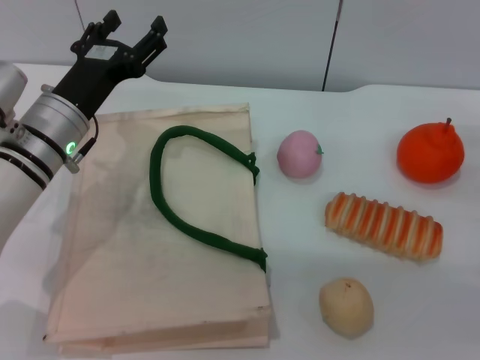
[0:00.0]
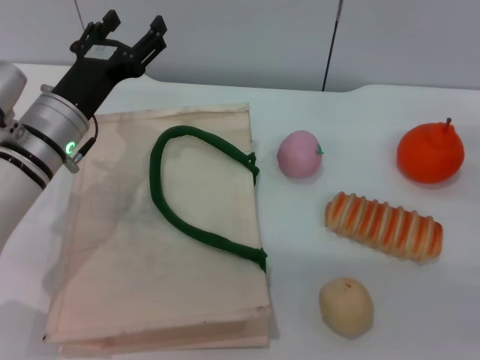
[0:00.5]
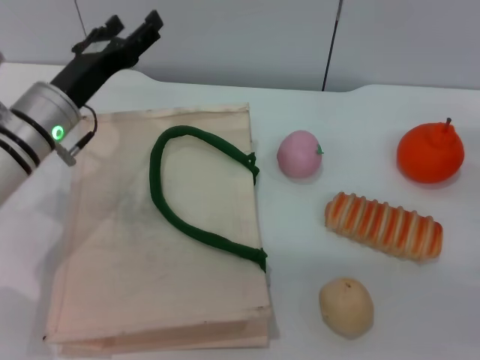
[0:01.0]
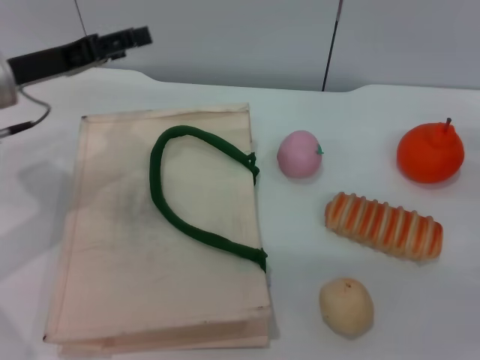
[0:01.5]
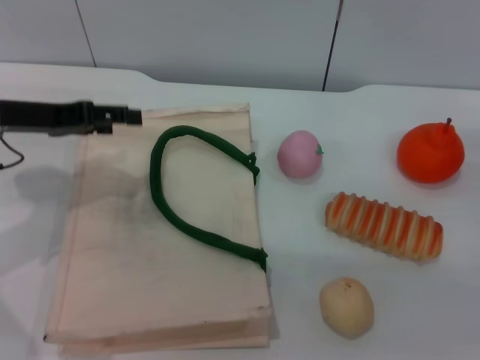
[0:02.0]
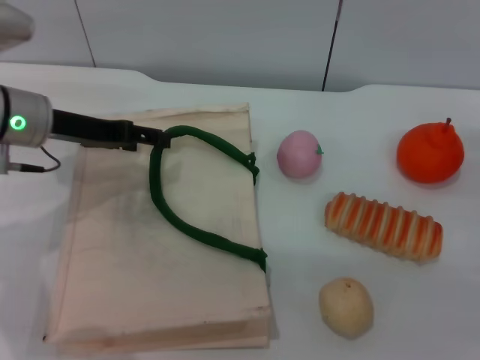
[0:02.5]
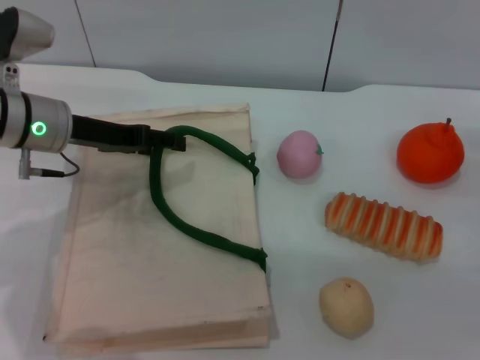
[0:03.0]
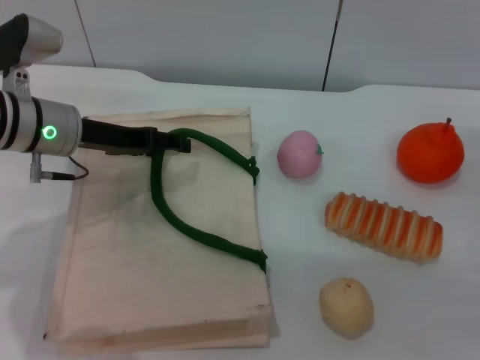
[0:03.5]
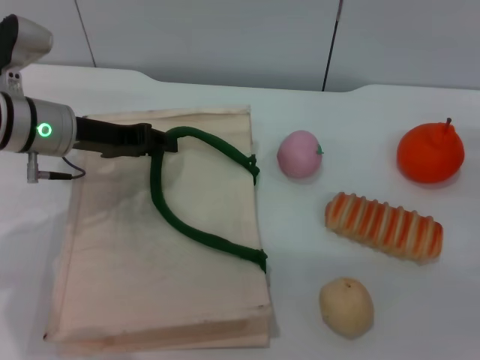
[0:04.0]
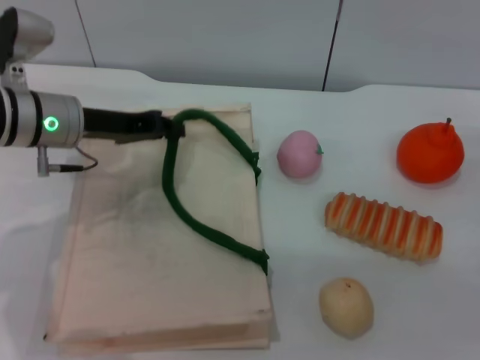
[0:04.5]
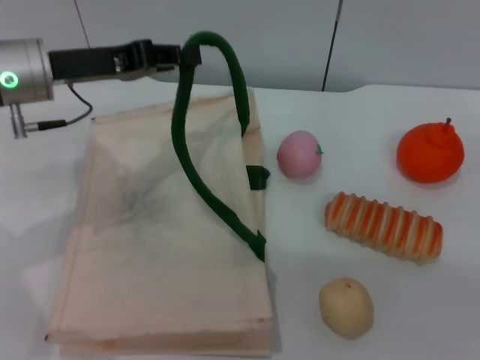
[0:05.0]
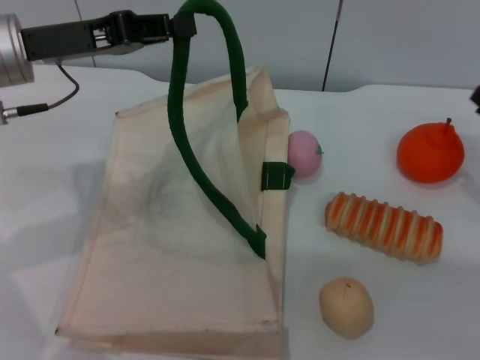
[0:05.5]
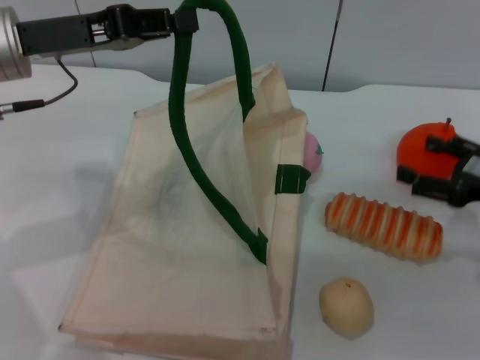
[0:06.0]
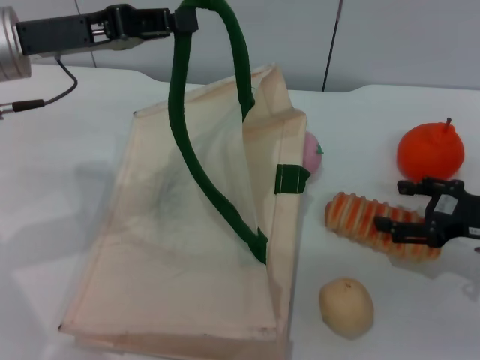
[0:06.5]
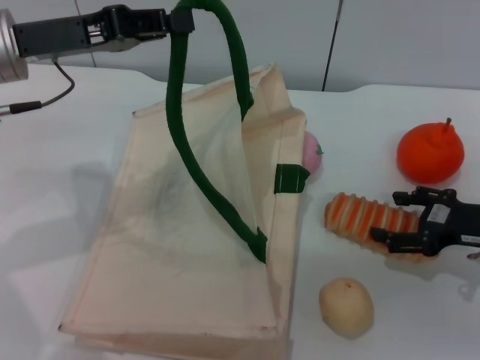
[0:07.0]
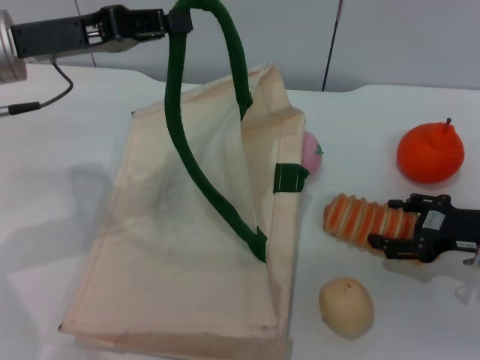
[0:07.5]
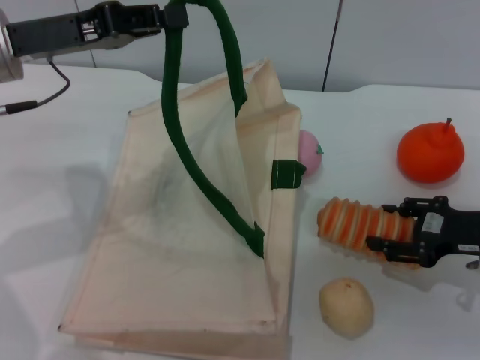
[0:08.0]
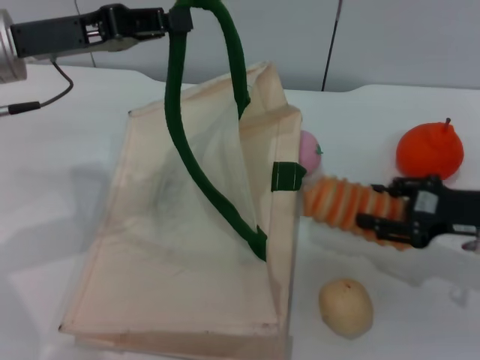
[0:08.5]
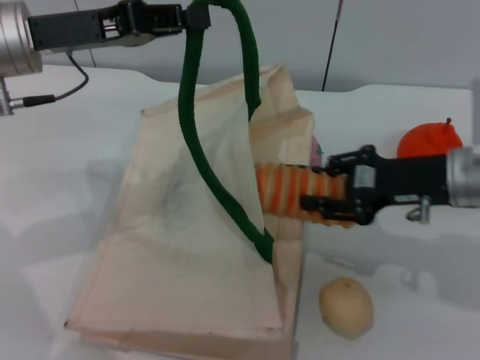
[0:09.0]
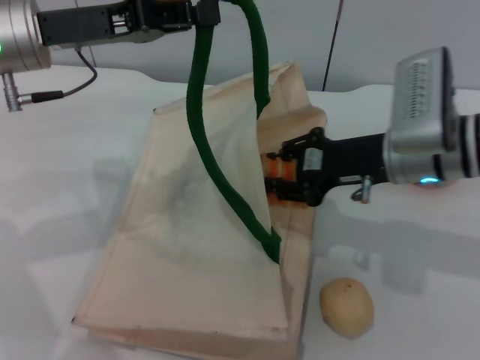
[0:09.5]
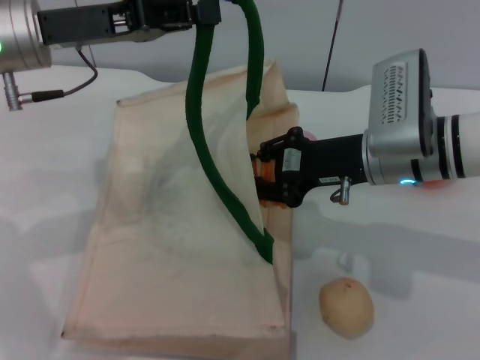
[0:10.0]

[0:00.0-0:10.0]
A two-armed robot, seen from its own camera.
Task of the whole recording: pick up the bread from the table and place it in the white handbag.
Step, 0:00.0 to 0:05.0: Lift the woven bag with the left gripper to open it.
Step, 0:05.5 to 0:08.5: Pick up the bread with the right gripper.
0:00.0 to 0:02.0: The left gripper moves to the left and upward, roughly 10 cm.
0:02.0 to 0:04.0: The left gripper is displaced to the right by roughly 5 cm, and closes up.
0:04.0 to 0:06.0: The left gripper shifts roughly 10 cm upward, and closes.
0:08.0 to 0:10.0: The right gripper goes some 15 cm to the left, and closes.

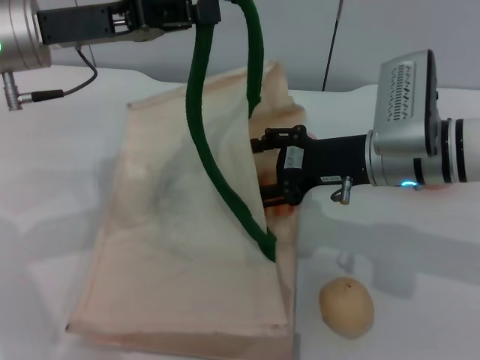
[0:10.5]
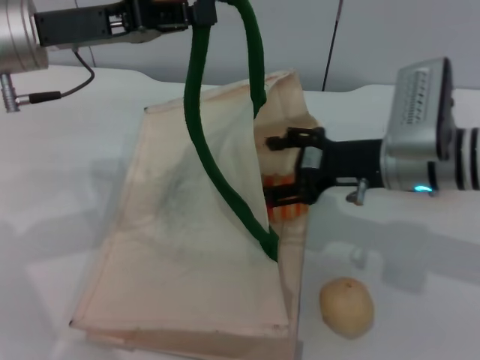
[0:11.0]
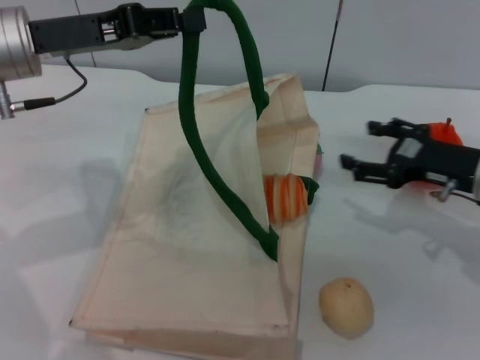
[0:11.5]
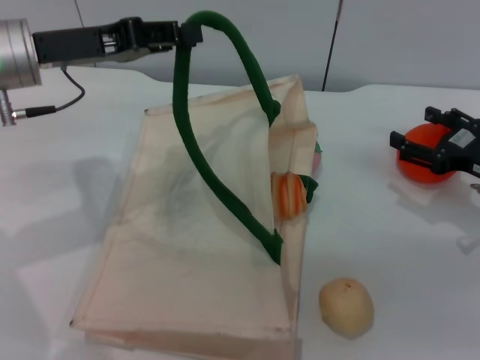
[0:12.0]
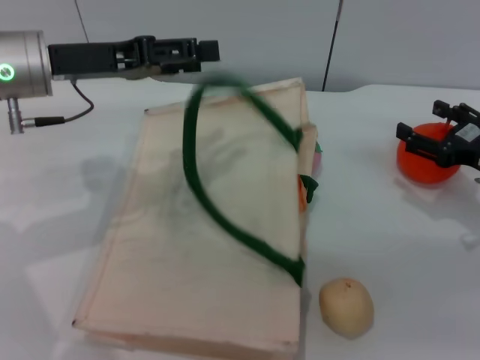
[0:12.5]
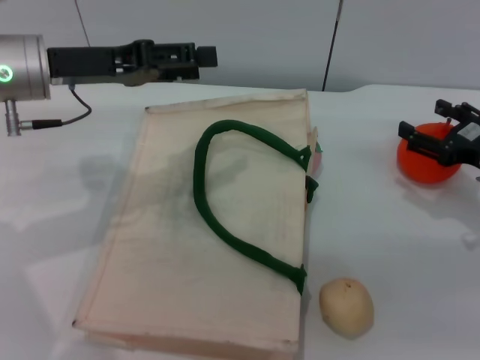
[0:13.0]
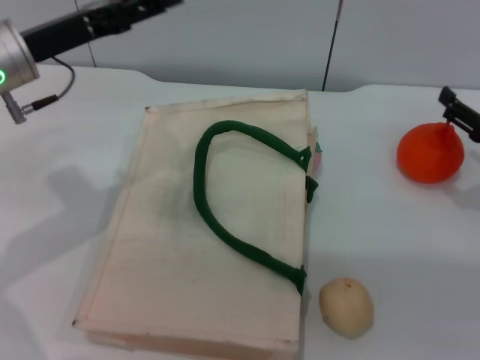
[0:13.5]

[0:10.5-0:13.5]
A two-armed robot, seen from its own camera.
Task of the whole recording: pick up the bread from the table and place it in the white handbag.
Step, 0:11.5 to 0:12.5: Lower the woven bag with the left gripper to close it.
0:10.5 to 0:12.0: The right gripper goes approximately 15 cm to the right, and opens up.
0:12.0 to 0:13.5: The left gripper opens its fingers.
